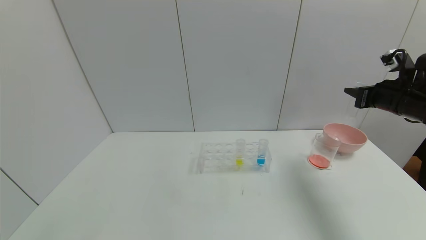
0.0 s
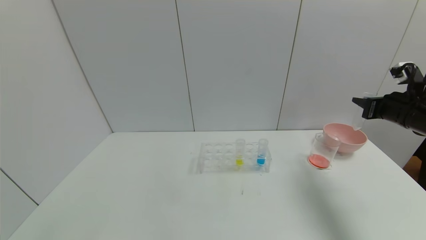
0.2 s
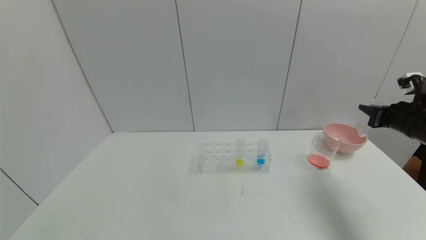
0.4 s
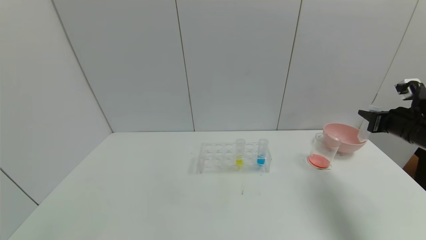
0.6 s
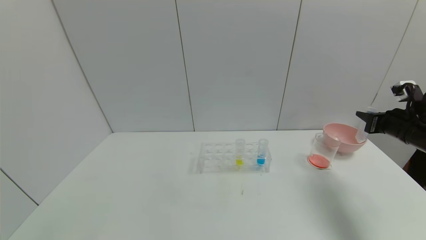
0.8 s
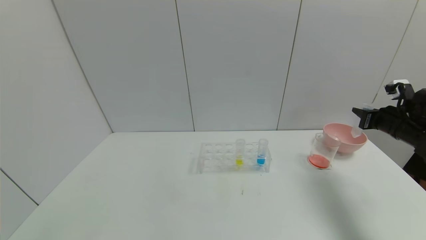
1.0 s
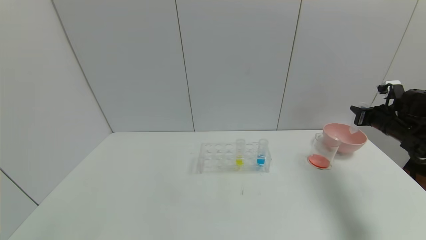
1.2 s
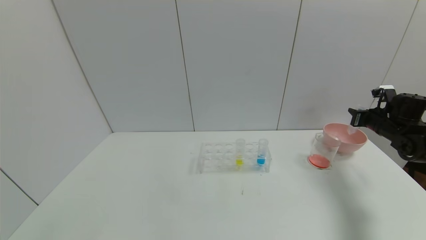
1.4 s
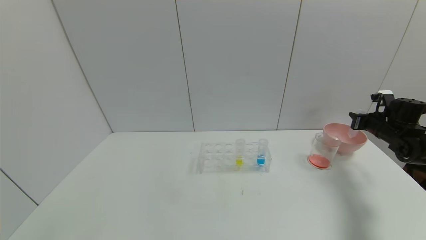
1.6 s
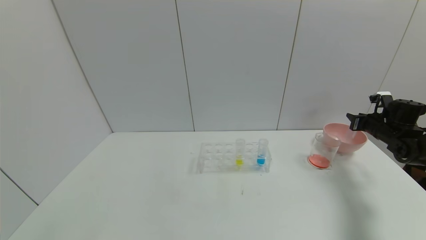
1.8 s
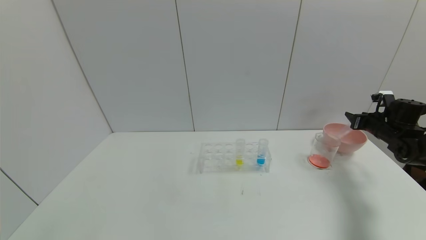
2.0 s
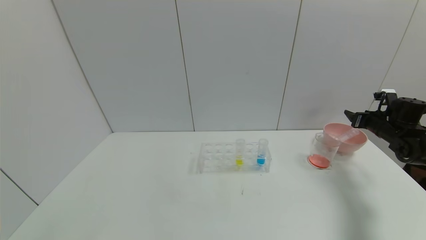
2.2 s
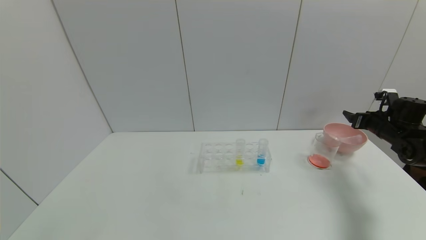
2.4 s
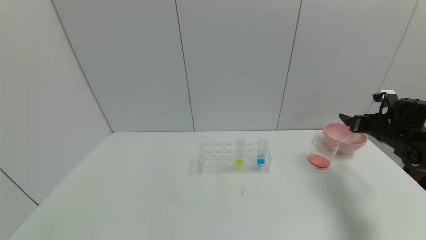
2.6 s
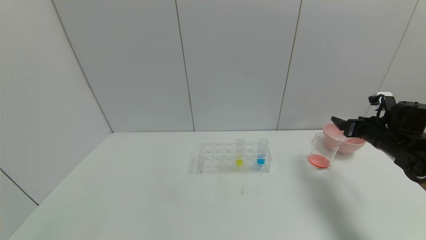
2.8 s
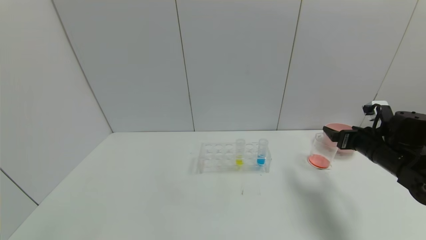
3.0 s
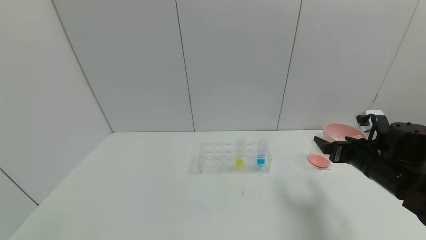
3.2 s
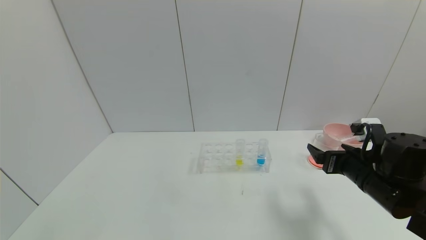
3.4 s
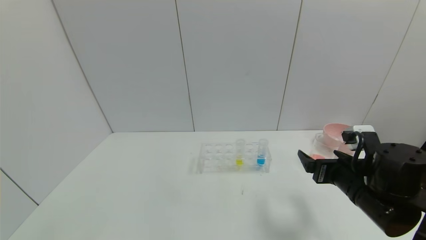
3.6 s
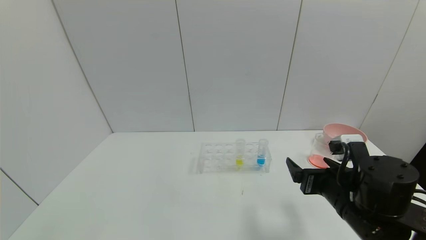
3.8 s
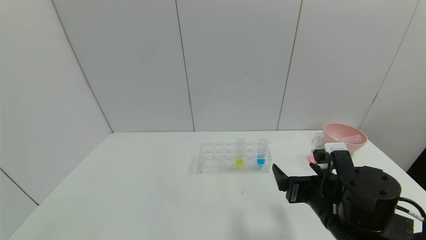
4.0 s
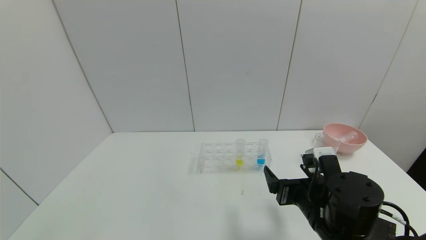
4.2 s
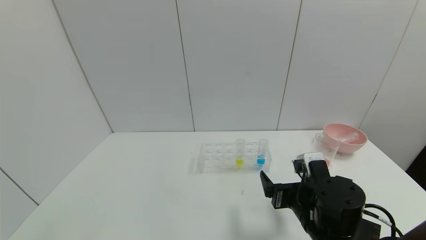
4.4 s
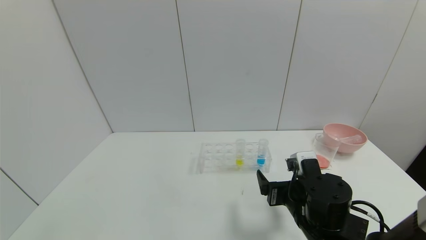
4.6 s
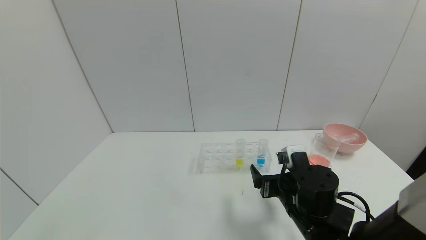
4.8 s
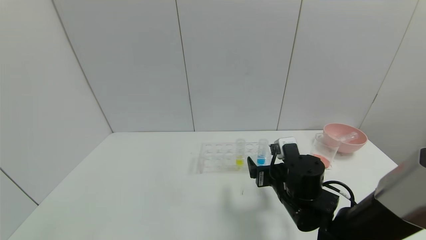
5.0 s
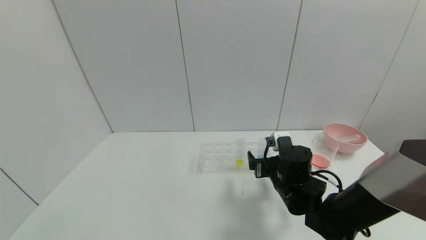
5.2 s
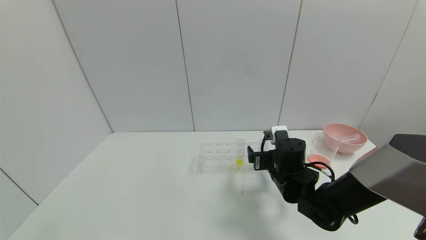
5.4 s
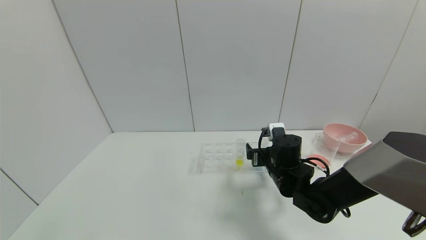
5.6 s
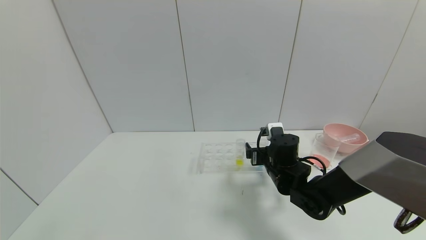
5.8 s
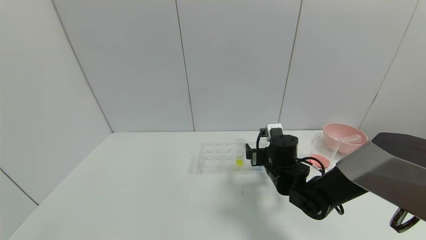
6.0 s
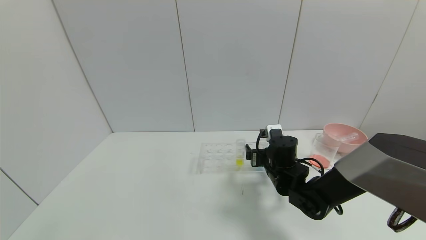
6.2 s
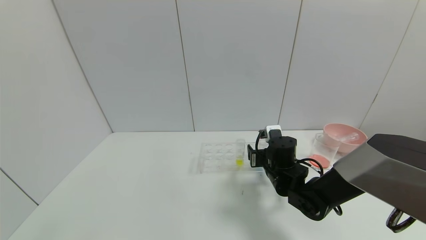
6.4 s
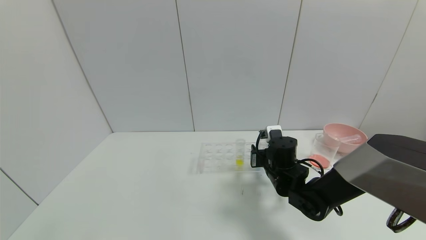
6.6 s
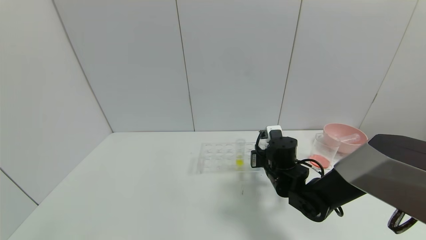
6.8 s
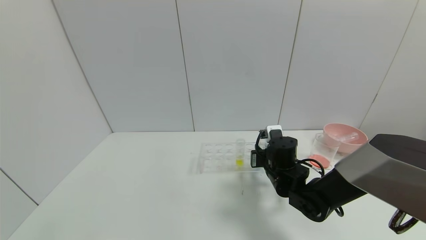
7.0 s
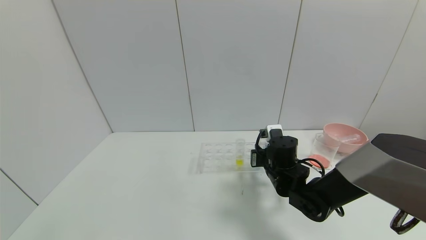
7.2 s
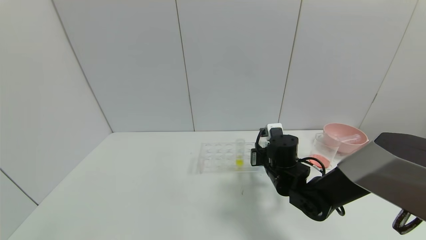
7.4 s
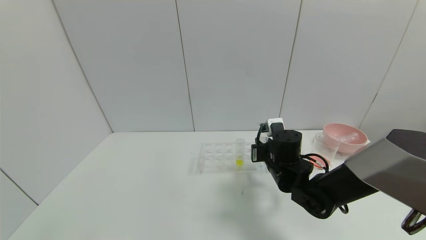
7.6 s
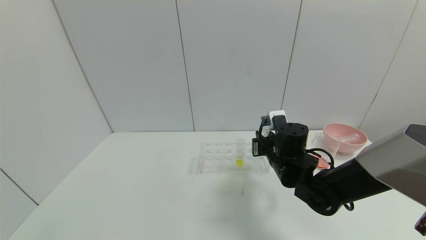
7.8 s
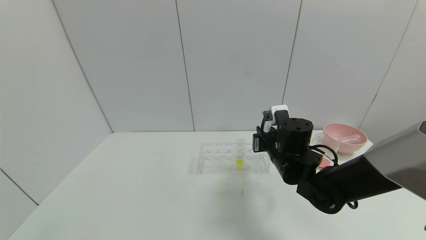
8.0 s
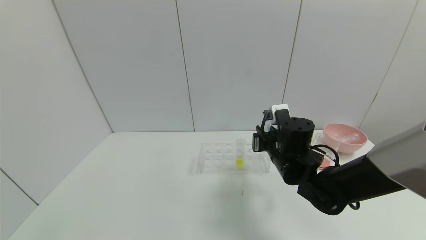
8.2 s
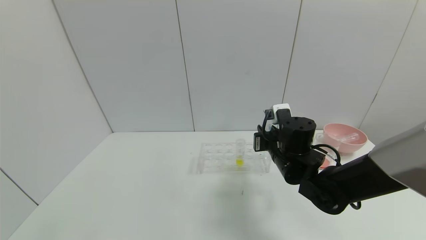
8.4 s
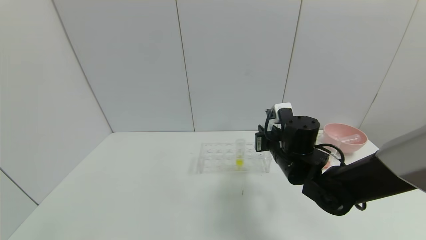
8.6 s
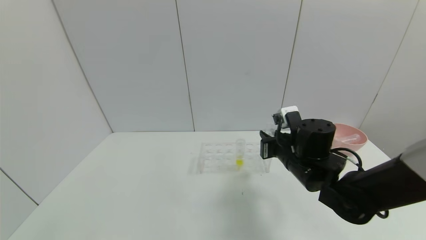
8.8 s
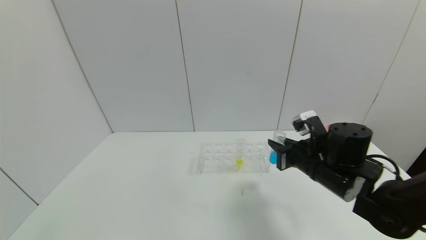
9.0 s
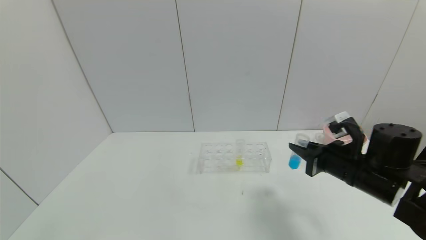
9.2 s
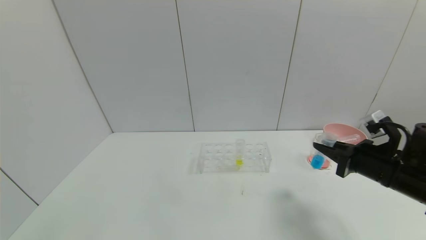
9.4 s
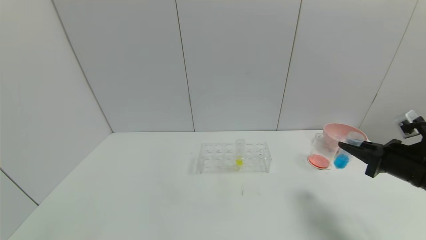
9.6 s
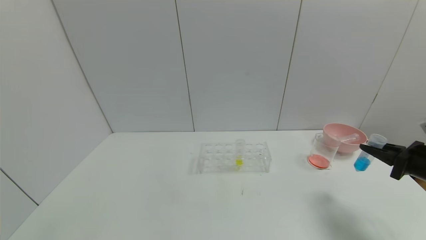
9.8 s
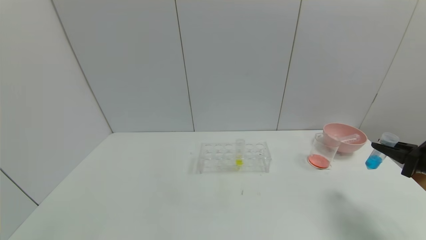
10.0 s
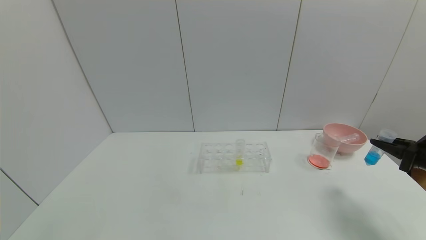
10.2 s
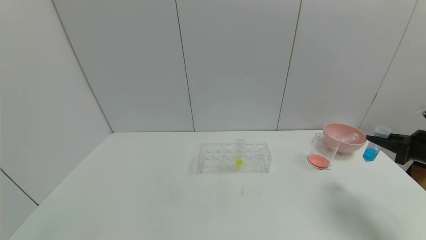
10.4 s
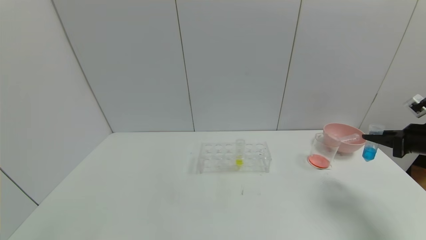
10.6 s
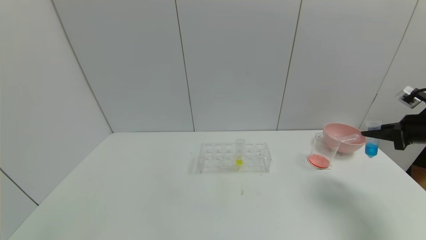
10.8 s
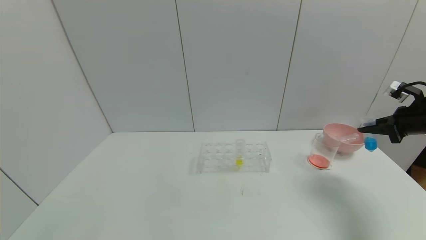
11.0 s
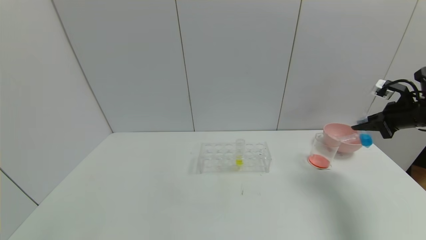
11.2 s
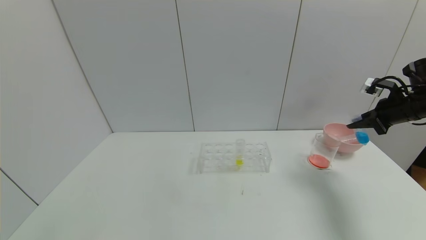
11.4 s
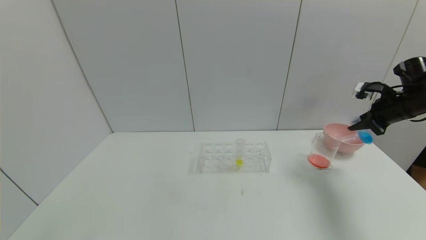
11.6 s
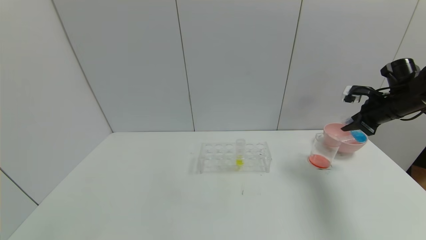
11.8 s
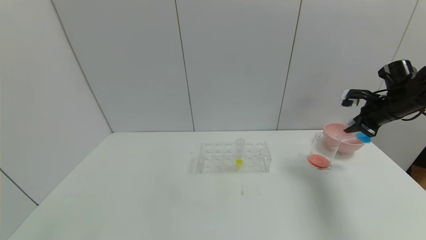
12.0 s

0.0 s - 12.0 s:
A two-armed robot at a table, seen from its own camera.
Task of the whole recording: pick up the test tube with red pigment and the test tube with blue pigment by grippers and pour them into the container.
Step, 0.0 s - 1.2 s: Place the test tube into the bowl with right gripper.
Step, 1.4 s - 8.0 s: Pick up the test tube containing the blue reagent with right gripper.
0.0 s - 1.6 s: The right gripper moves downward, forward and to the right, approximately 15 cm.
1.6 s - 3.0 s: The right gripper is displaced to the left and backward by roughly 15 cm, and opens.
3.0 s - 4.4 s: The right gripper is displaced to the left and backward by some 20 cm.
4.4 s - 6.0 s: The right gripper shifts approximately 15 cm forward.
6.0 s - 7.6 s: The right gripper closes its fingers.
7.6 s - 9.0 s: The right gripper heads to the right and backward, covering about 10 cm.
9.0 s - 10.4 s: The right gripper moves to the right, some 25 cm.
10.4 s - 12.0 s: The right gripper shifts approximately 15 cm forward and upward.

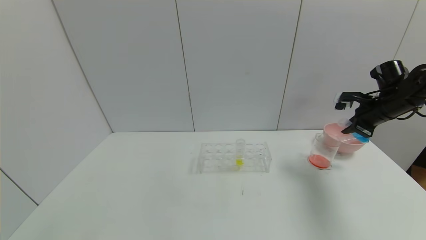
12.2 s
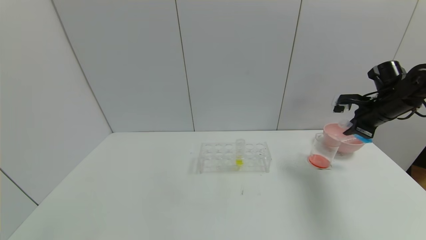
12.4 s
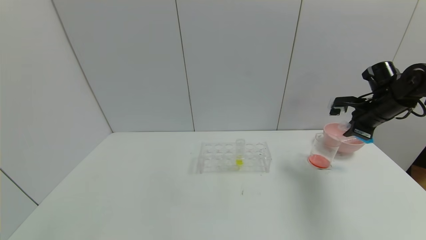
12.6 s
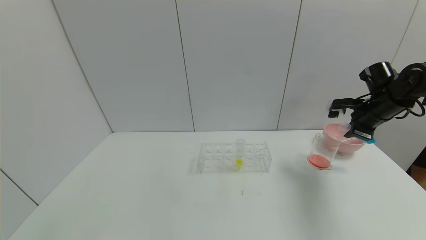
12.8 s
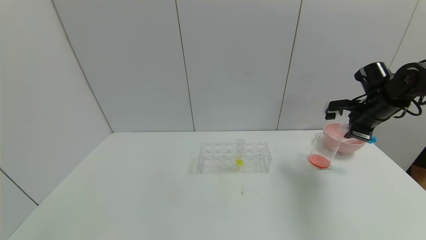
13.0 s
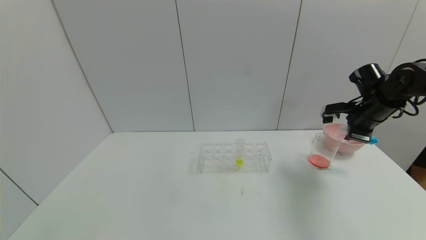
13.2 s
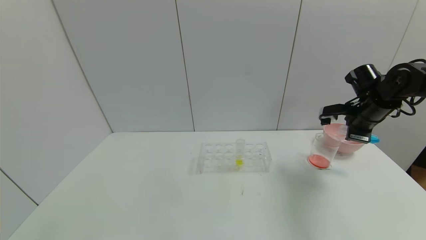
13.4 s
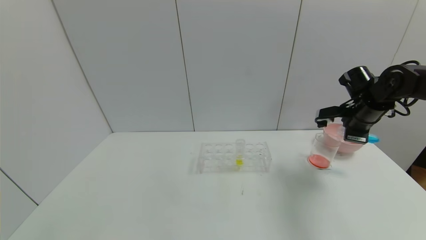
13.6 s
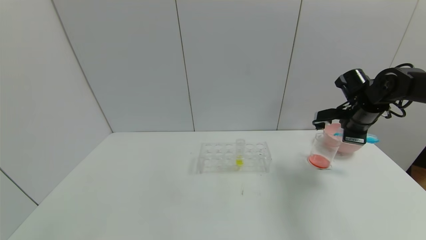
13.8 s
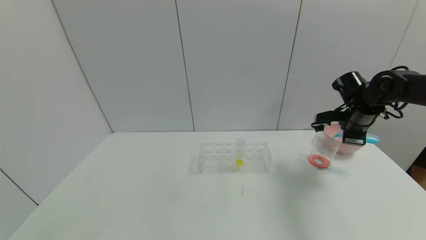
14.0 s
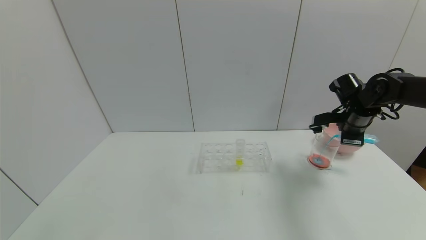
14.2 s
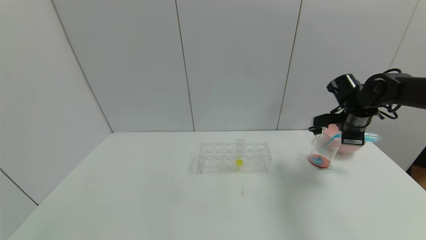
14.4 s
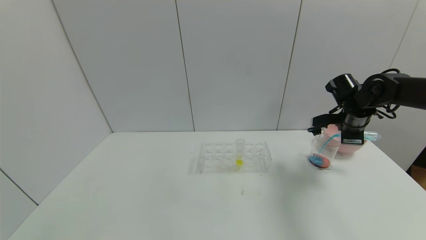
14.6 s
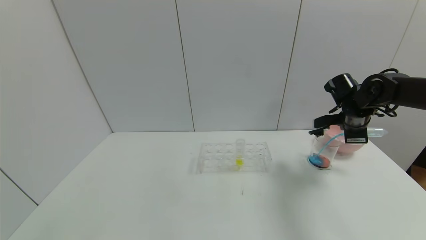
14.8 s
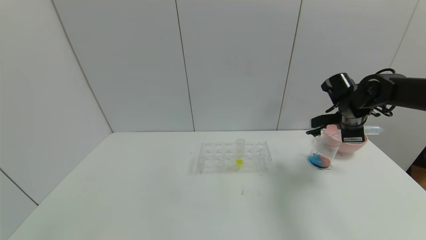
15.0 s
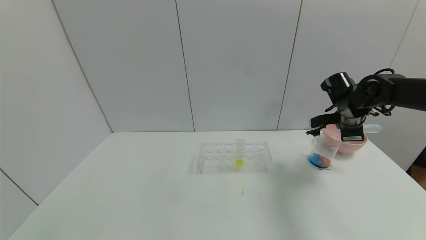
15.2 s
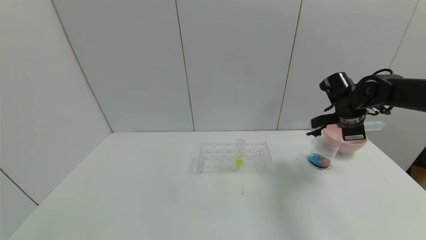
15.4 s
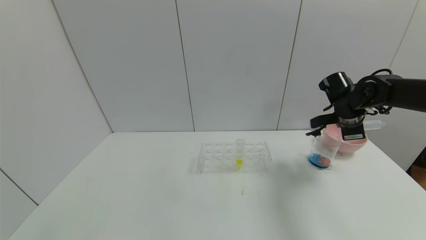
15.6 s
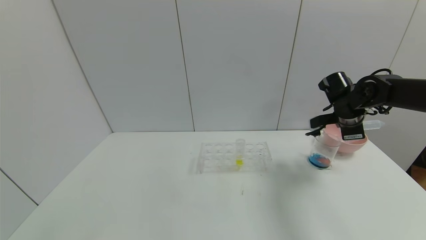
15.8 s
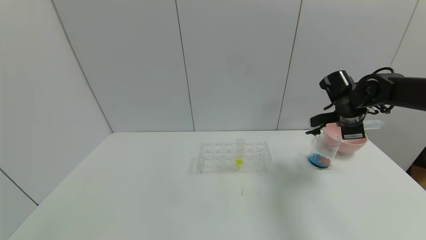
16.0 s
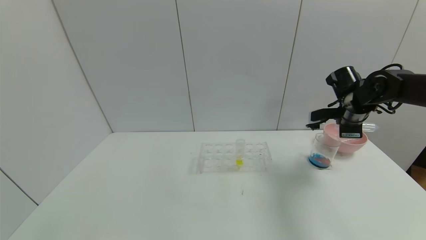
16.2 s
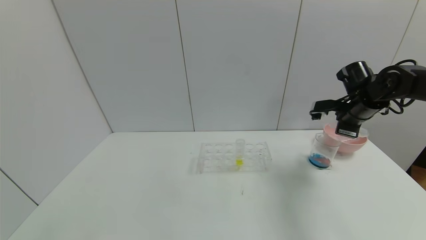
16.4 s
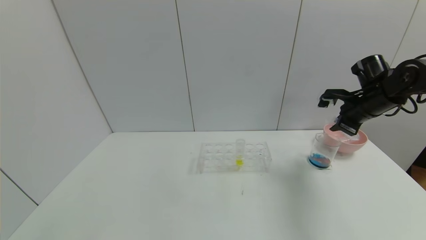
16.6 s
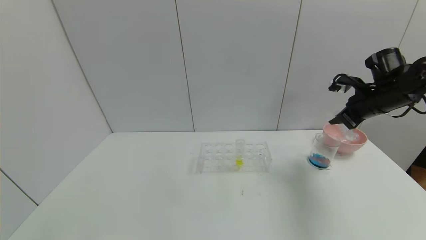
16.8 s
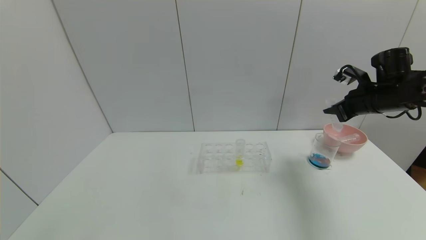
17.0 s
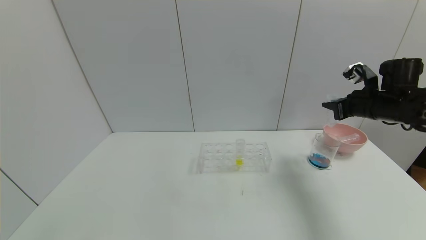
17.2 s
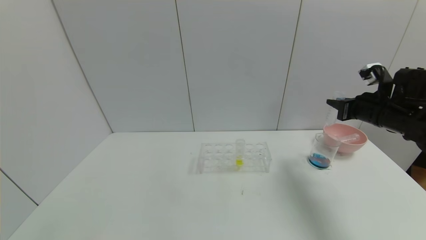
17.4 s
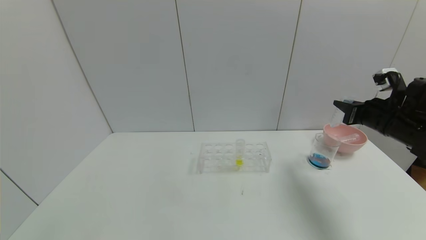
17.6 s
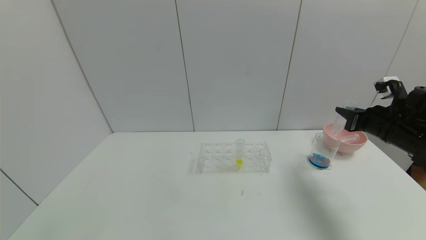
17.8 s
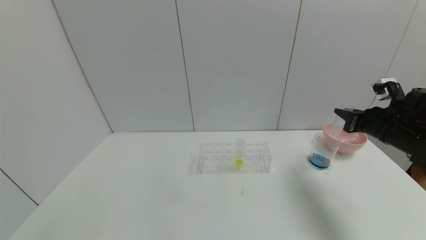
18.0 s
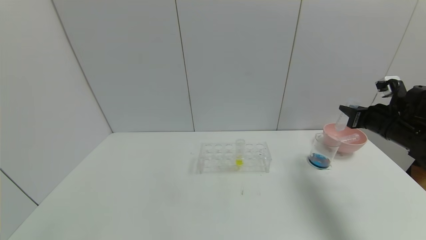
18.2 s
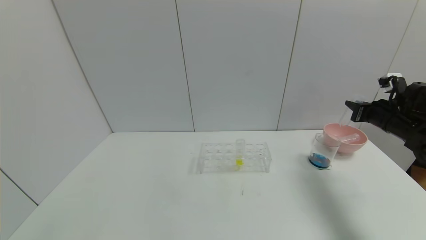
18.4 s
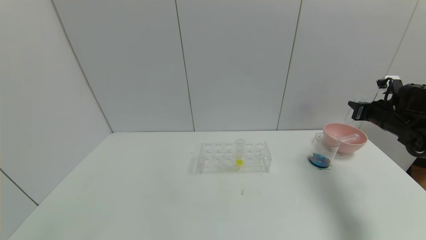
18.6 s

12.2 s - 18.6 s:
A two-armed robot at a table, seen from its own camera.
Task of the whole recording: pick up the test tube with red pigment and the test tube with blue pigment by grippers and pour them into the container.
Step, 12.2 s - 16.2 s: Pour the blue reagent into the graduated cylinder with right gripper.
12.2 s - 13.8 s: The right gripper heads to the left, covering approximately 5 cm.
15.4 s - 17.0 s: The right gripper ends up some 5 cm from where it was.
17.0 s - 18.6 s: The right gripper moves to the right and downward, approximately 10 cm.
